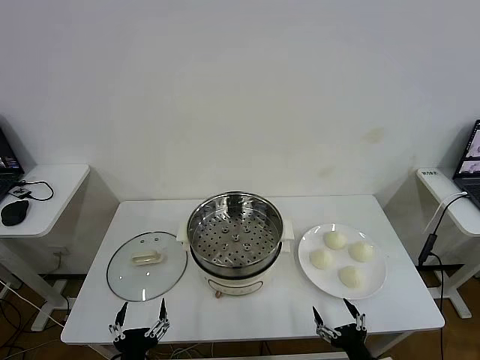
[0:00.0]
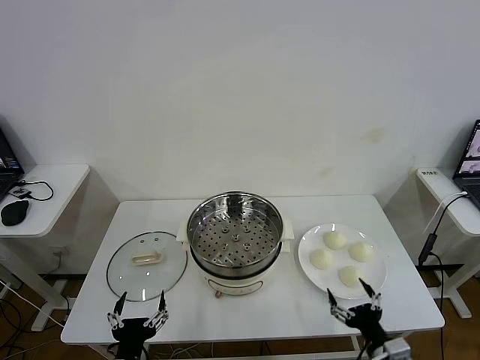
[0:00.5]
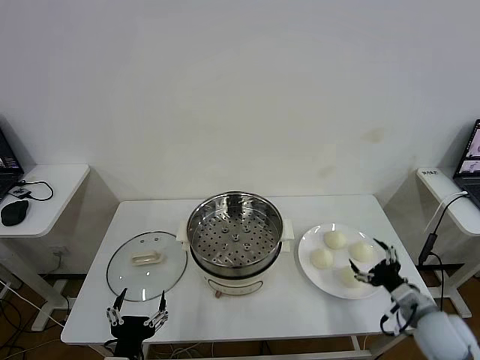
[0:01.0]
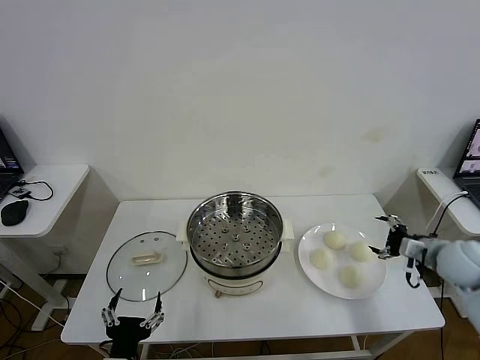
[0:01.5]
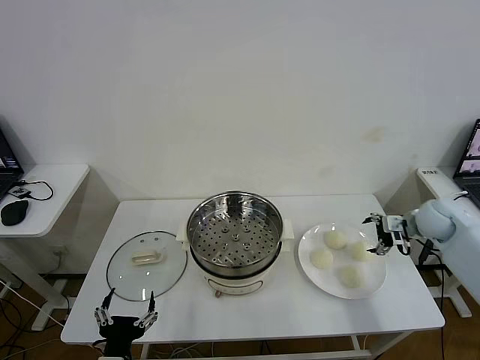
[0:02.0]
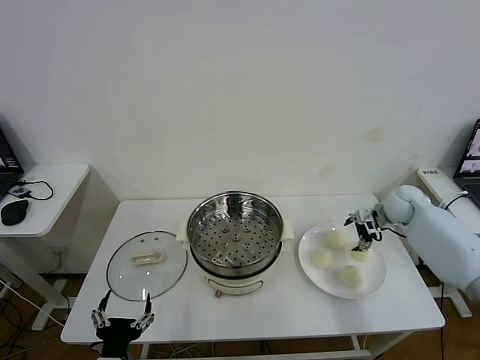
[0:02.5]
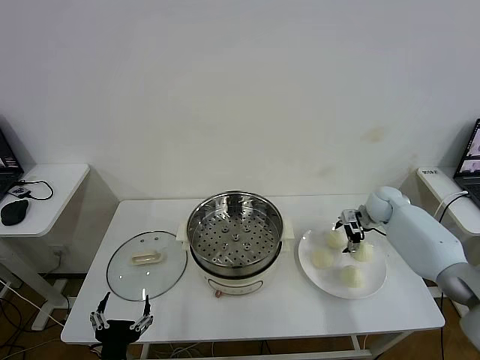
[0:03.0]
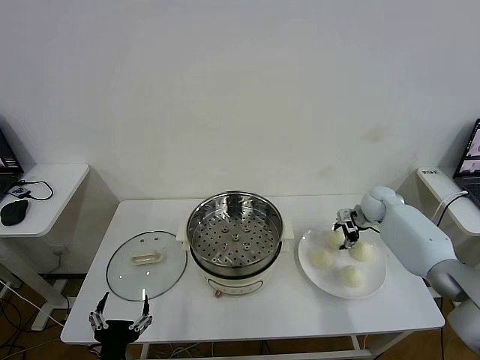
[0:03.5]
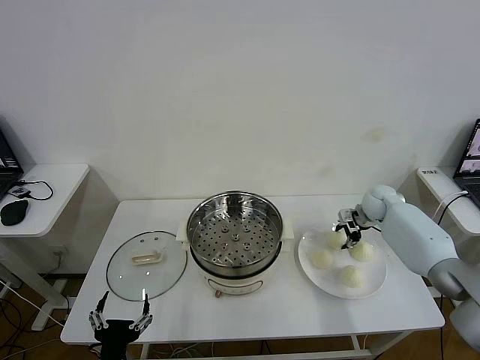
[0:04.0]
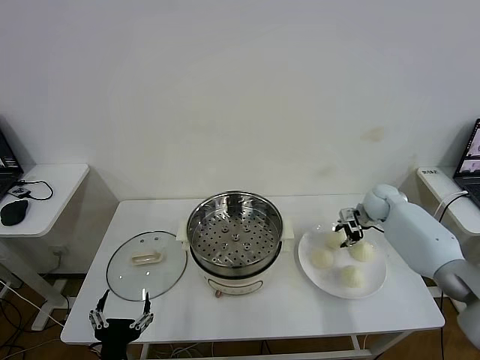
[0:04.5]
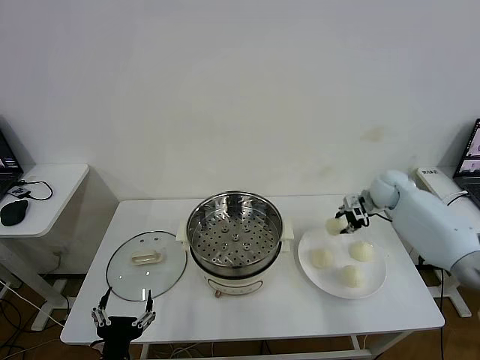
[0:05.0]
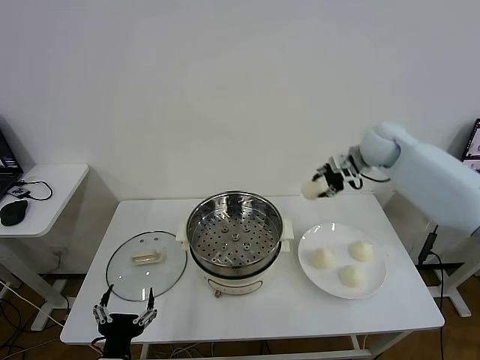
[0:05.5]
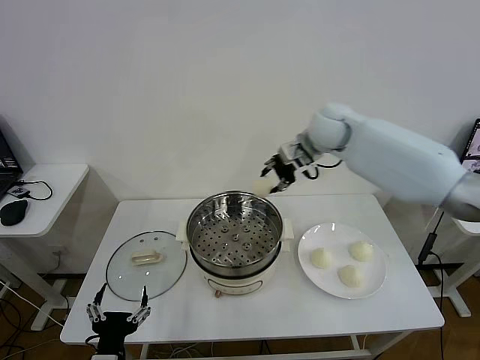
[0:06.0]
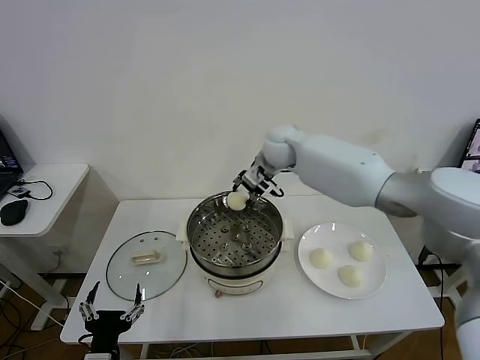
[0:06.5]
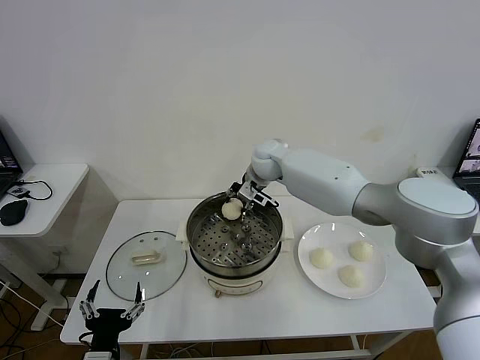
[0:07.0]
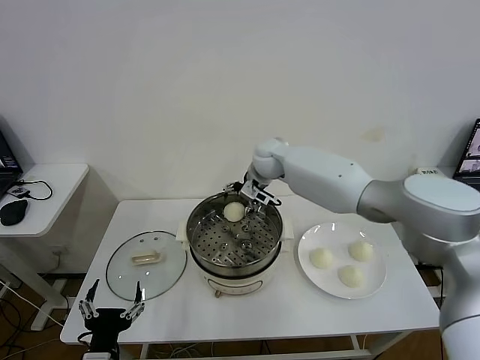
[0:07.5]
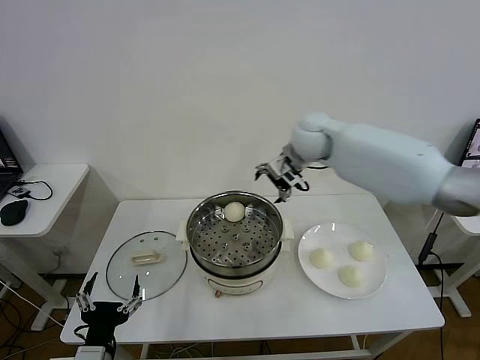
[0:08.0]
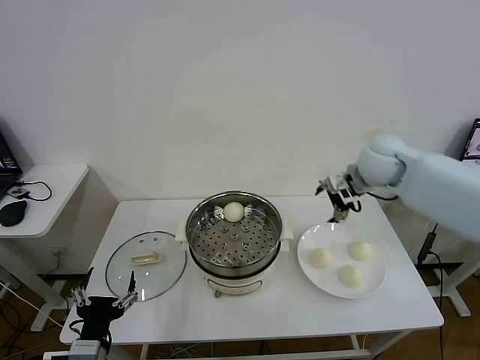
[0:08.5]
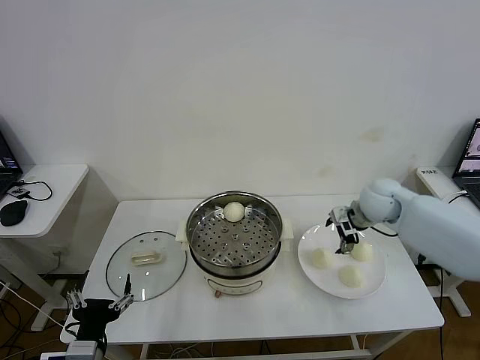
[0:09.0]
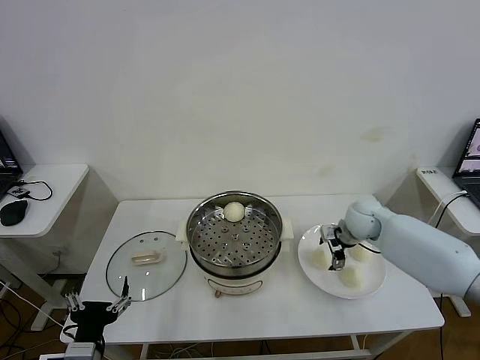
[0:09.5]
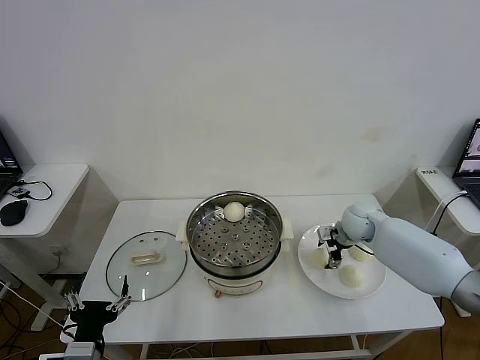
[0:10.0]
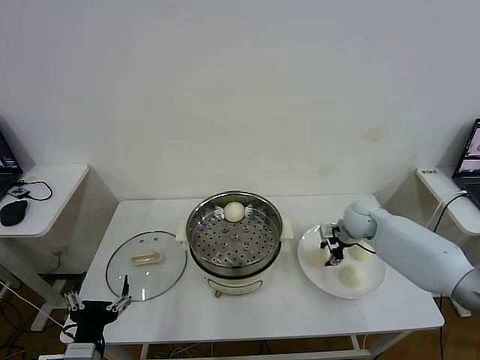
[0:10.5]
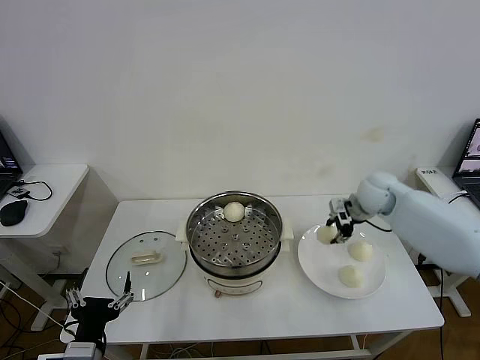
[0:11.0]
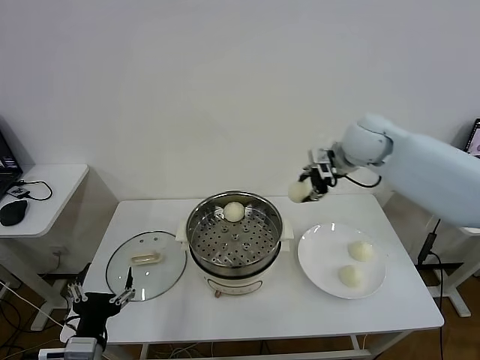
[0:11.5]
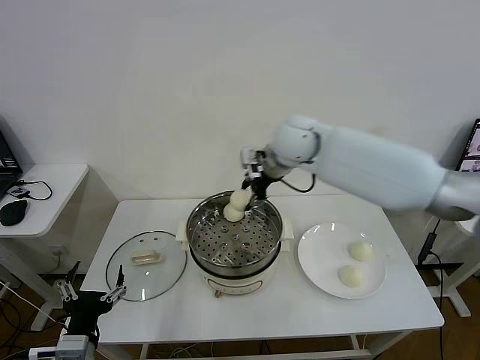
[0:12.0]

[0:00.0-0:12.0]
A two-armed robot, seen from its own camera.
Task of the whole recording: take steamed baozi put them in steamer then cover it.
Step, 0:00.0 to 0:04.5: Grasp the baozi in the plate with right gripper.
Step, 0:05.0 to 0:07.5: Place the baozi on the steamer with right gripper.
Step, 0:08.0 to 0:10.5: Grasp the baozi in the plate with right gripper.
0:02.0 to 0:04.0: The right gripper shifts approximately 15 cm forward, to the left and downward, and closes.
0:04.0 to 0:06.0: The right gripper moves upward and to the left, some 30 cm.
0:06.0 to 0:08.0: The right gripper goes to the left and returns, some 10 cm each way, and opens up.
0:08.0 to 0:10.0: The right gripper is displaced downward and to the right by approximately 25 cm, and closes up.
0:10.0 to 0:12.0: The right gripper is displaced upward and to the left by approximately 30 cm, and closes.

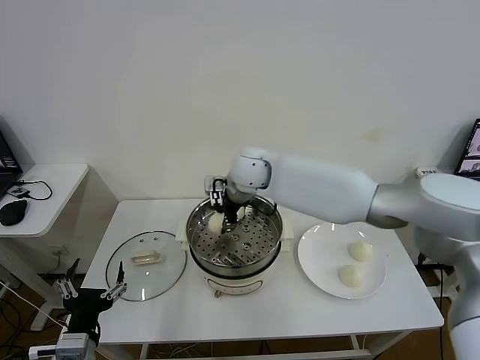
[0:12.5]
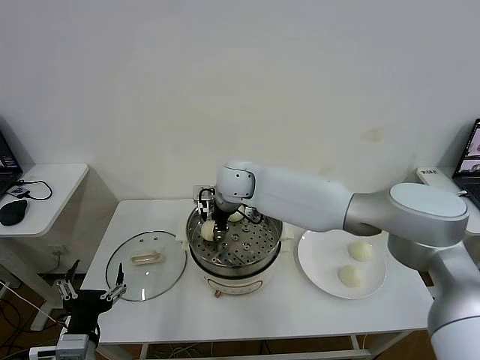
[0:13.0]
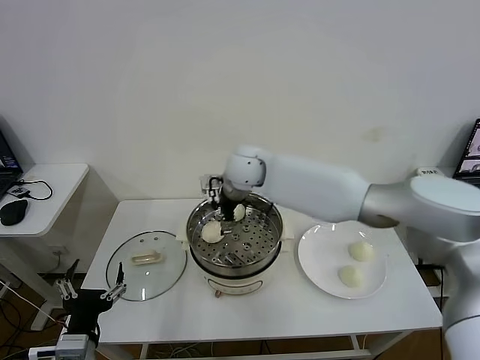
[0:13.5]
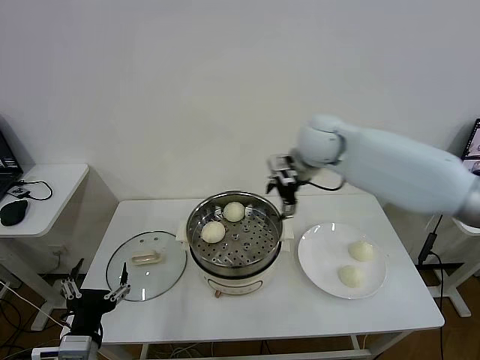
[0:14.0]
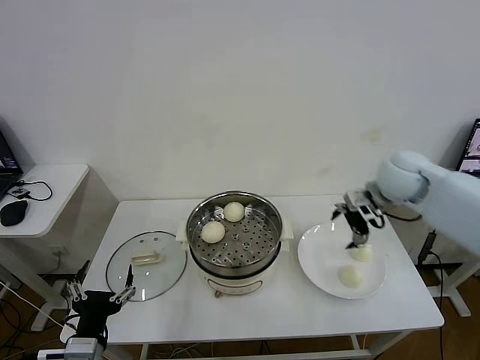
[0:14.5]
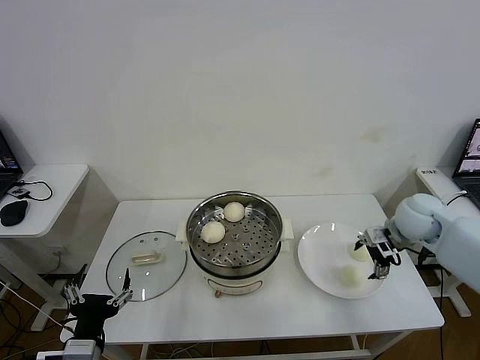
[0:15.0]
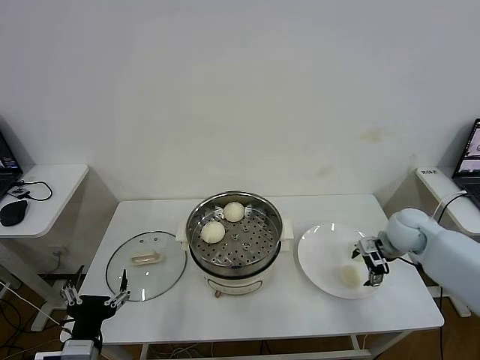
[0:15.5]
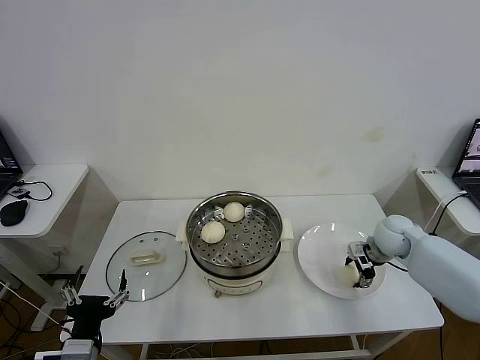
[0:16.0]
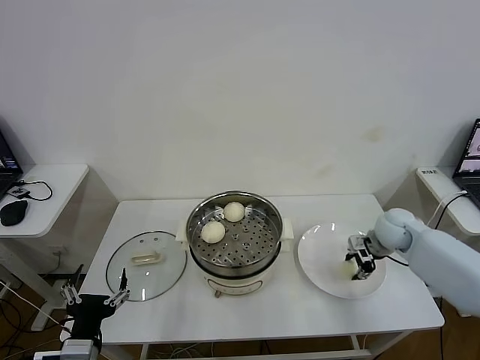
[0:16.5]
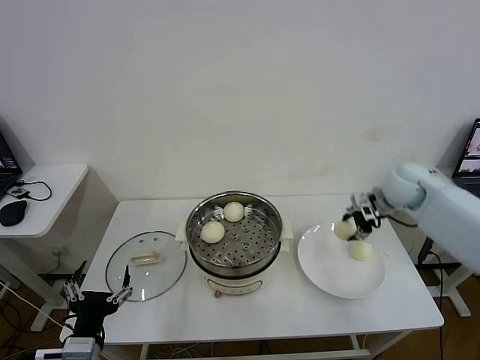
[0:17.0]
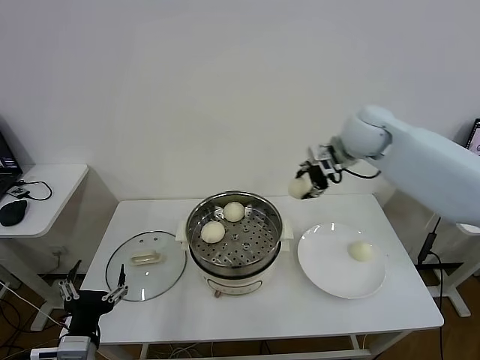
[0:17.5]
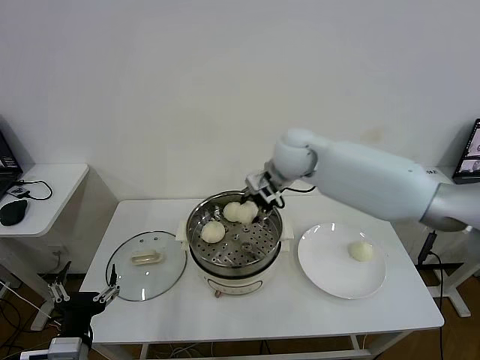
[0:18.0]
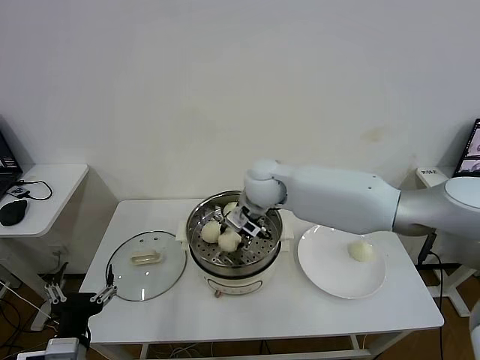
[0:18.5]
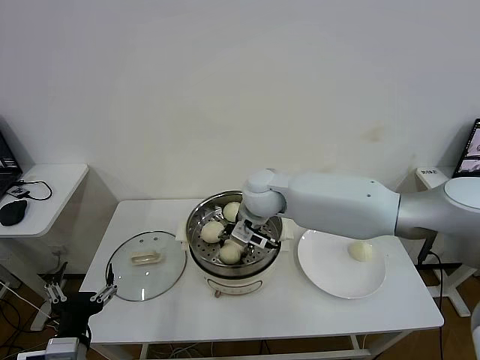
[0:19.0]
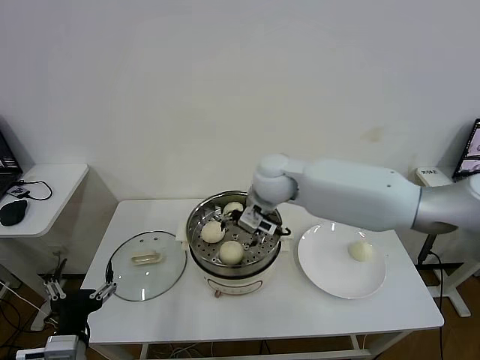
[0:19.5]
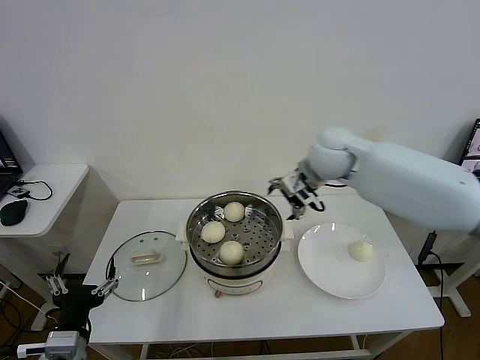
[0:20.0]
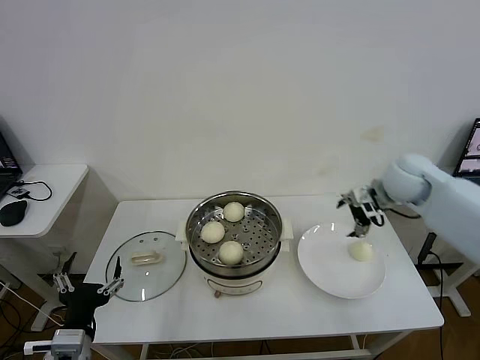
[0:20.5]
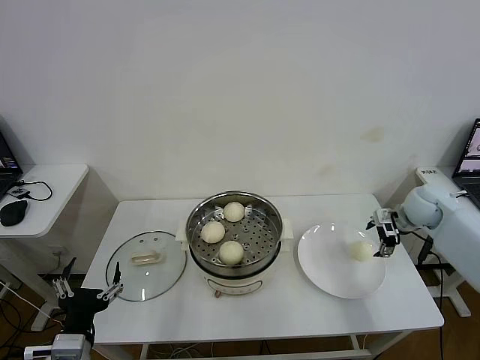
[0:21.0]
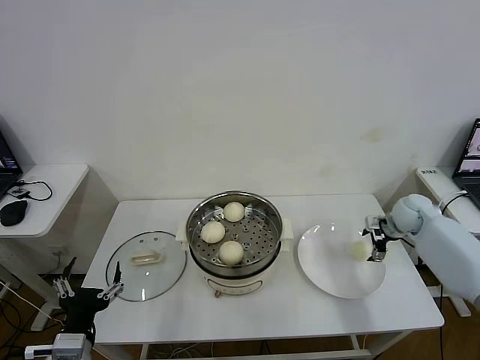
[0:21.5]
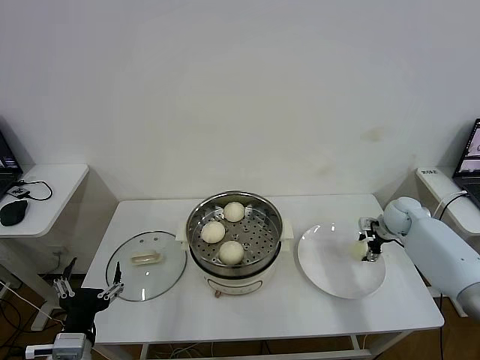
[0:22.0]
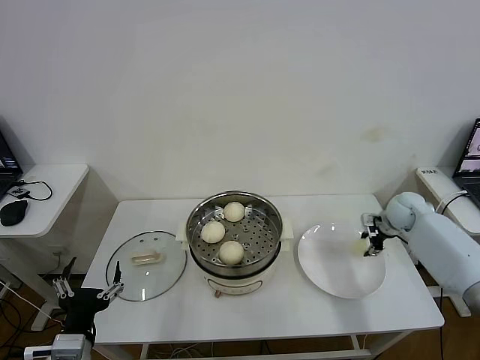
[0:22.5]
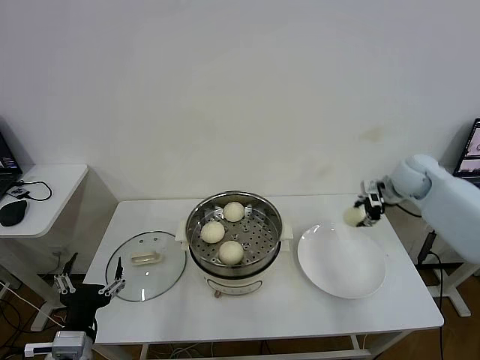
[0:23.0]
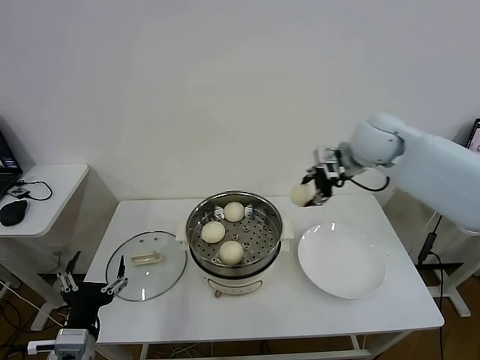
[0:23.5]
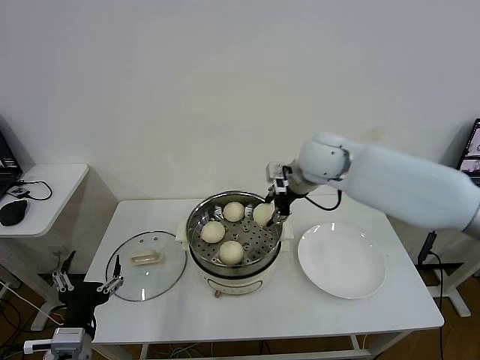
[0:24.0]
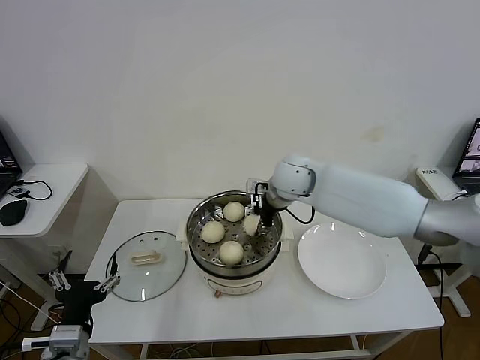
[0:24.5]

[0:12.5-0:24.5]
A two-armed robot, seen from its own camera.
Task of the whole recording: take steamed baozi put them in steamer then cover it.
Step, 0:14.0 to 0:16.5: Grasp the baozi in the plate with right gripper.
Step, 0:17.0 to 0:19.0: Place the baozi on the steamer with right gripper.
Step, 0:19.5 to 0:22.5: Grasp the baozi in the plate with right gripper.
0:12.5 to 0:14.5: The right gripper travels to the right by approximately 30 cm, and opens its fingers.
0:14.5 to 0:16.5: The right gripper travels downward by approximately 15 cm, and closes its fingers.
0:16.5 to 0:18.5: The right gripper moves to the left, some 35 cm.
0:18.5 to 0:20.5: The right gripper moves to the right, approximately 30 cm, and opens up.
0:20.5 to 0:22.5: The right gripper goes approximately 15 cm downward and to the right, and closes its fingers.
0:22.5 to 0:24.5: The right gripper travels to the left by about 30 cm.

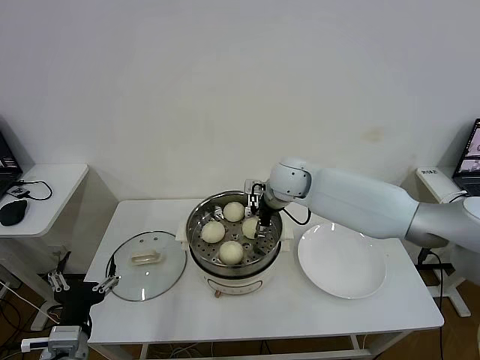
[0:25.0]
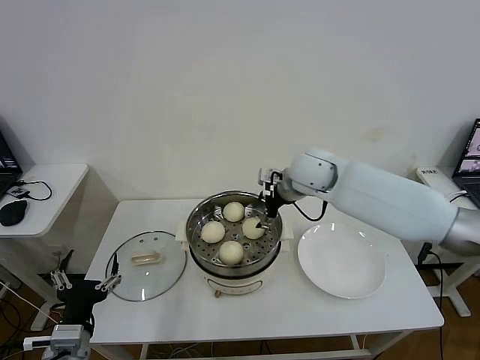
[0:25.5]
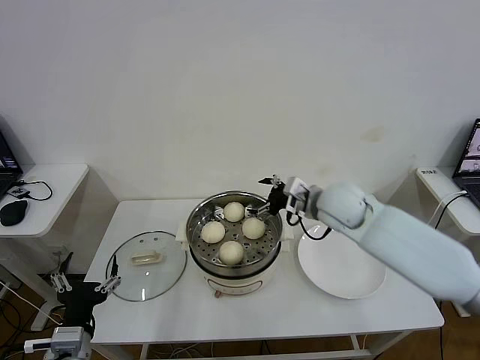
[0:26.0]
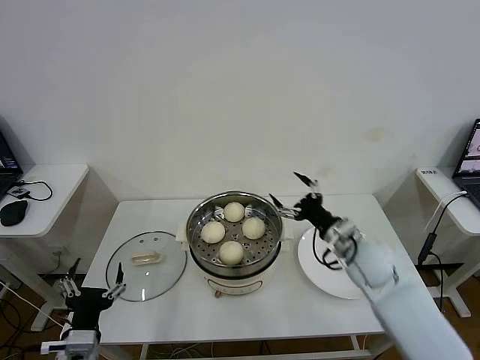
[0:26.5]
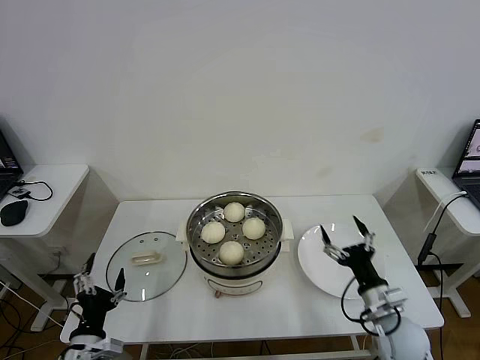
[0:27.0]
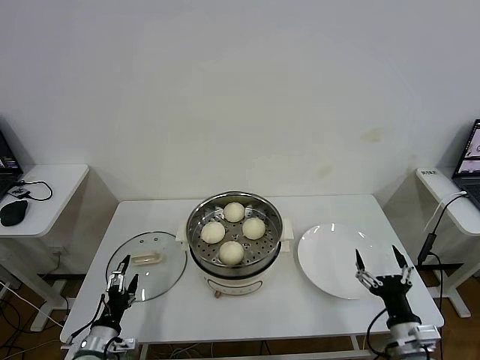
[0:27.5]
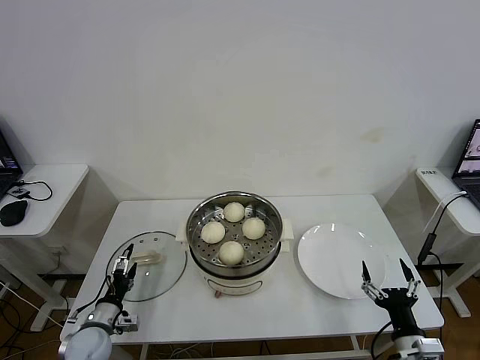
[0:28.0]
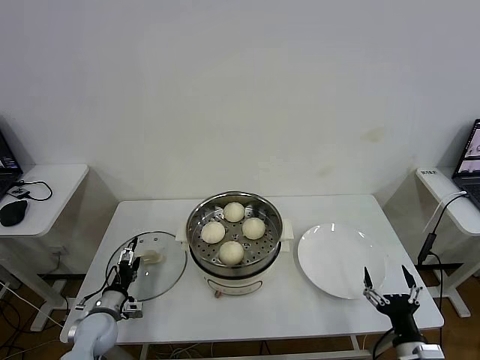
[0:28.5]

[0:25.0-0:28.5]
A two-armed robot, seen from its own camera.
Task of the whole recording: take steamed baozi put them in steamer then cover it.
0:25.0 to 0:27.0: The right gripper shifts approximately 40 cm backward, to the right and downward, while the left gripper goes some 5 cm downward.
0:27.0 to 0:28.5: The right gripper heads backward, covering about 10 cm, while the left gripper travels forward and downward by roughly 20 cm.
